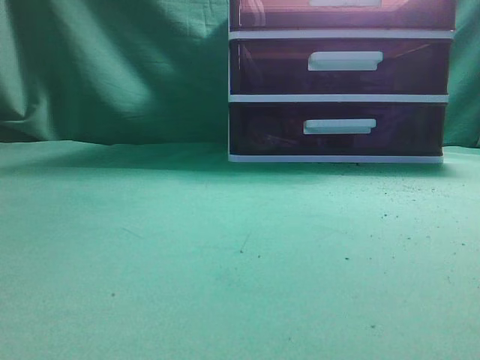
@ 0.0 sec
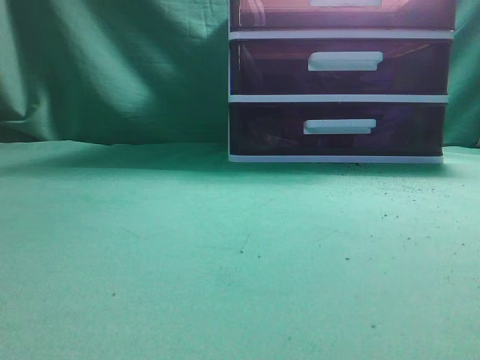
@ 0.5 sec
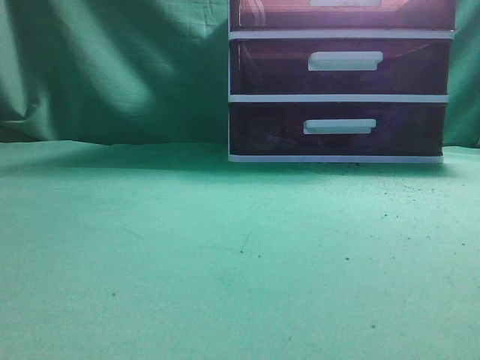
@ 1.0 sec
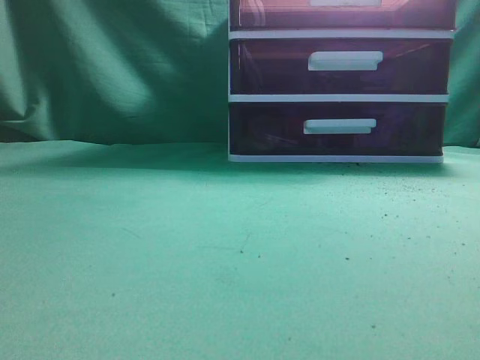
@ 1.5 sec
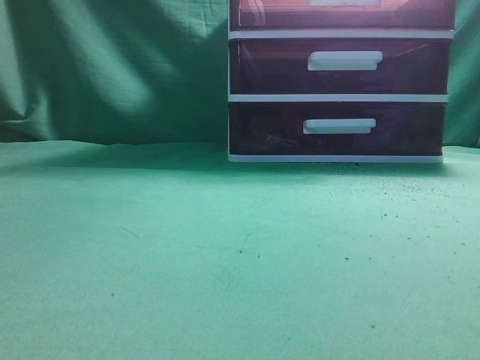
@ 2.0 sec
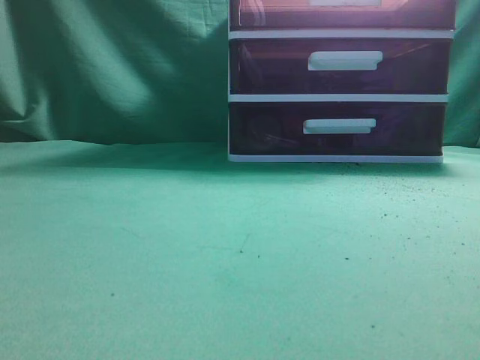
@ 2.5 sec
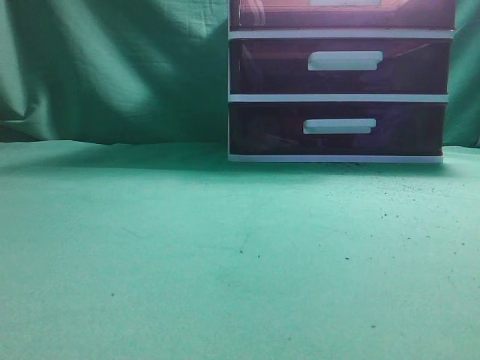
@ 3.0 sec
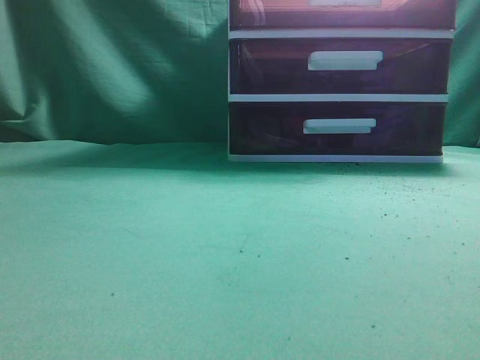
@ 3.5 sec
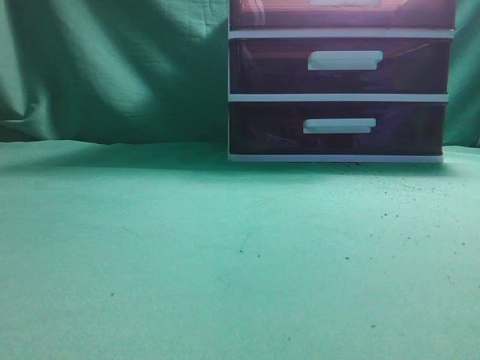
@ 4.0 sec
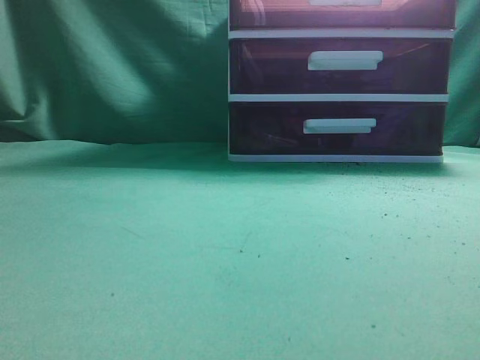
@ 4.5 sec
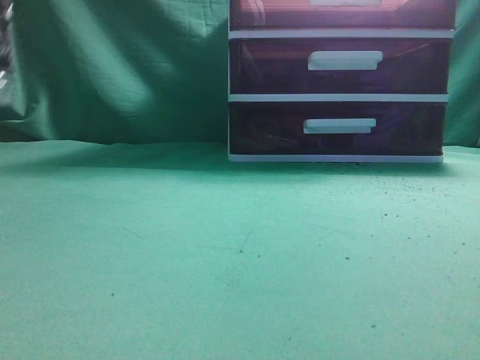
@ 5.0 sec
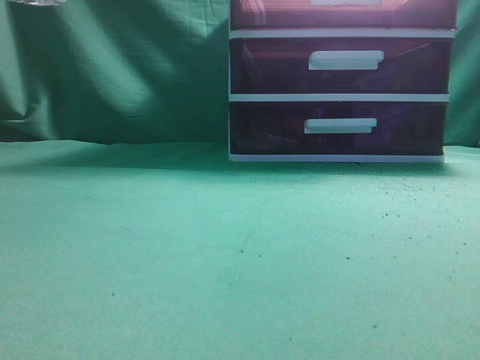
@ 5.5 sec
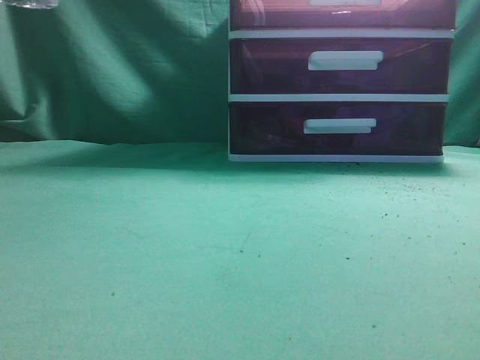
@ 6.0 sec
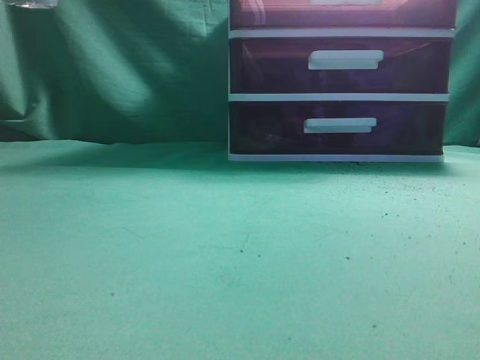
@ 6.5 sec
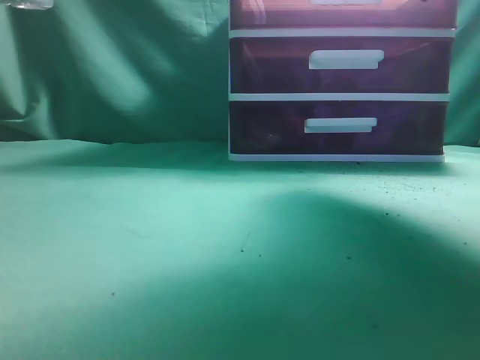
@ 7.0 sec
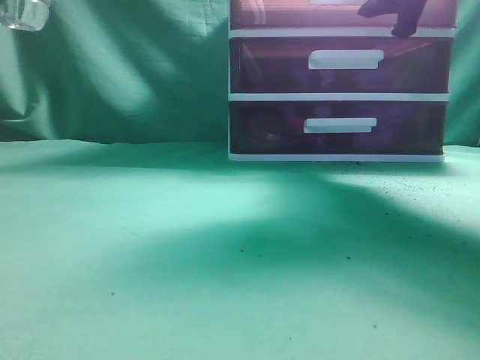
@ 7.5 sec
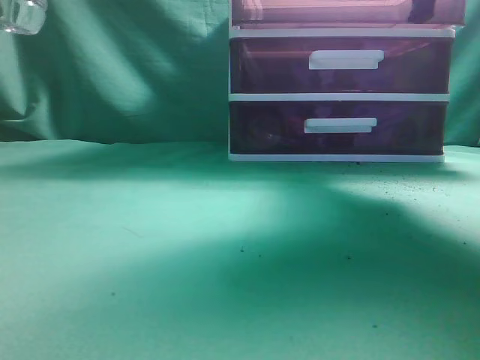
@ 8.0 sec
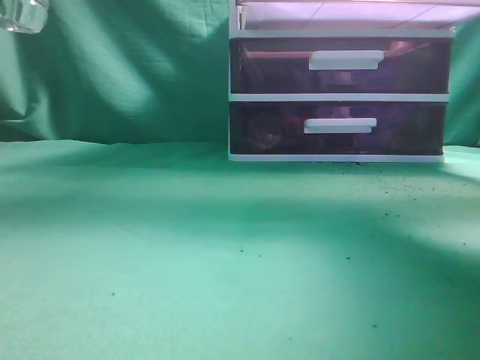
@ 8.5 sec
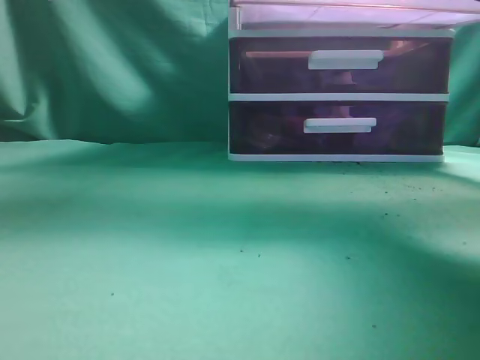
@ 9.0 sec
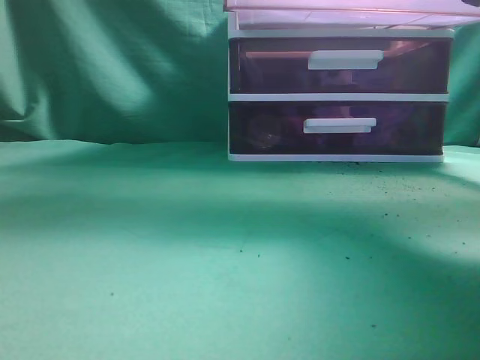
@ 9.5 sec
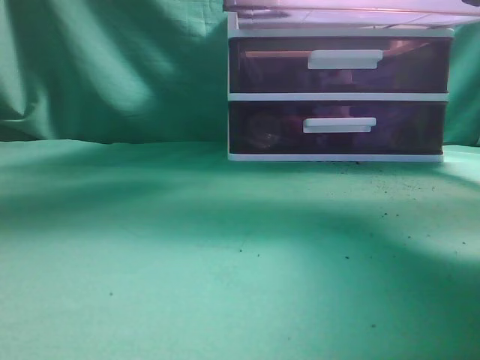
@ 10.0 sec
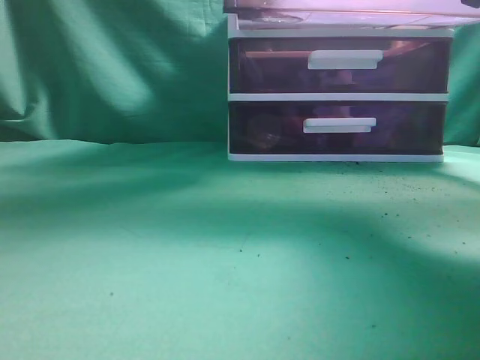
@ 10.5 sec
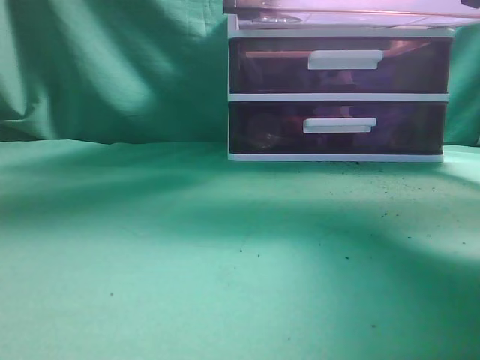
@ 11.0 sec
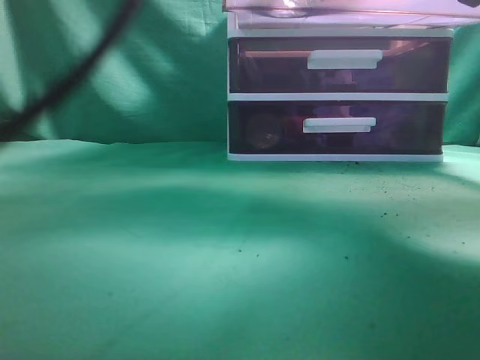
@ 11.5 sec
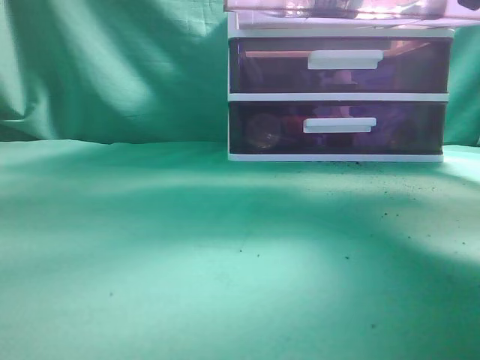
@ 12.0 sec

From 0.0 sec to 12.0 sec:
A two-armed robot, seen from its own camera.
Task of the whole recording: place the water bottle into the drawer.
Step, from 0.0 sec to 8.5 sec: Open the drawer.
Step, from 9.0 sec to 11.5 sec: Place the water bottle inside the drawer.
From 6.0 sec to 8.0 sec: The right gripper goes approximately 30 cm forward, and opens, then closes once more.
From 8.0 sec to 10.0 sec: The left gripper moves to the right and forward, some 20 cm; the right gripper travels backward by approximately 10 cm.
From 10.0 sec to 12.0 sec: The left gripper heads to the right, covering roughly 10 cm.

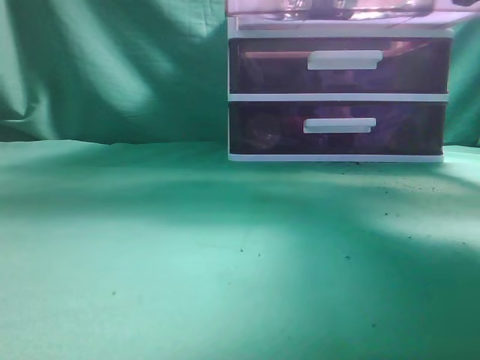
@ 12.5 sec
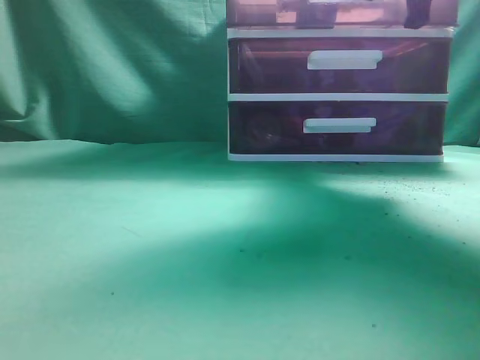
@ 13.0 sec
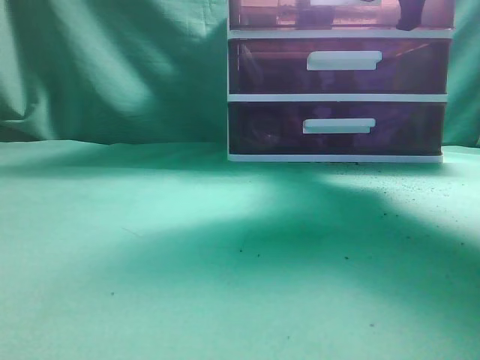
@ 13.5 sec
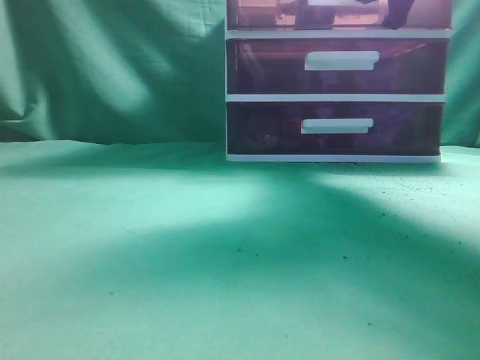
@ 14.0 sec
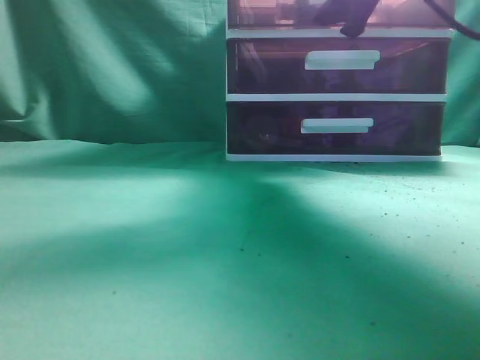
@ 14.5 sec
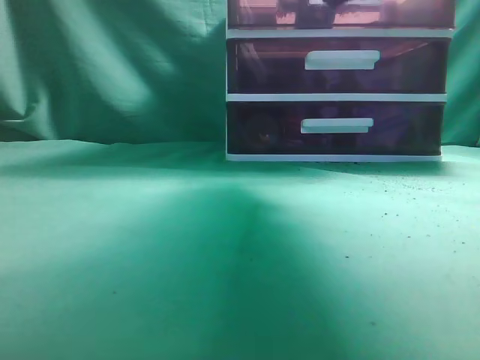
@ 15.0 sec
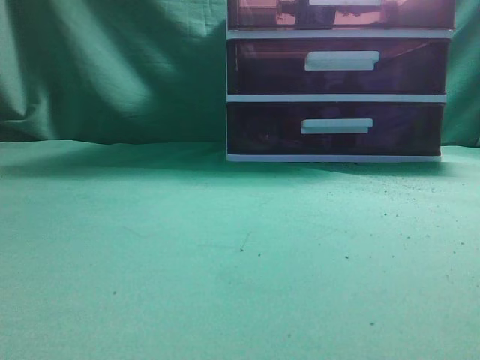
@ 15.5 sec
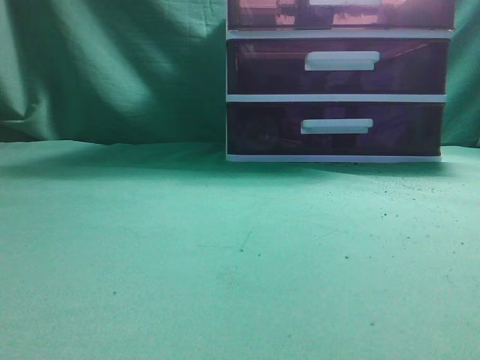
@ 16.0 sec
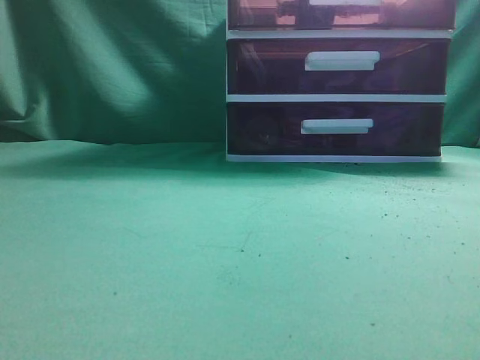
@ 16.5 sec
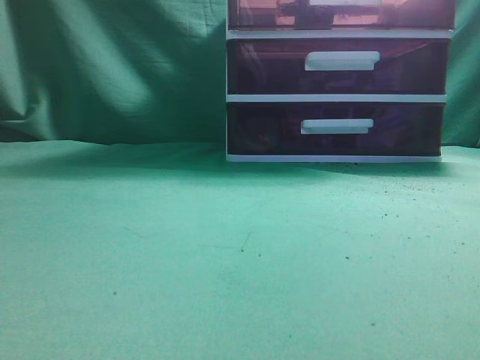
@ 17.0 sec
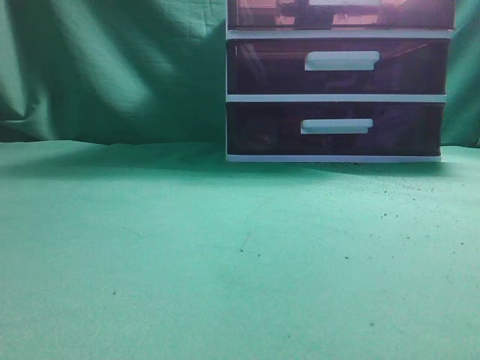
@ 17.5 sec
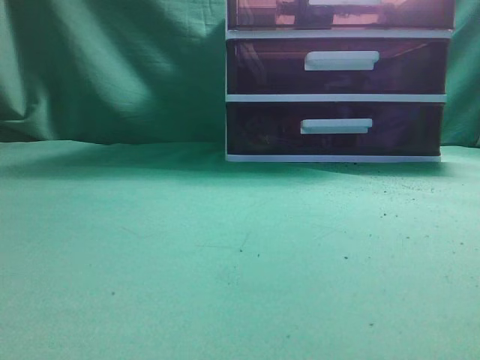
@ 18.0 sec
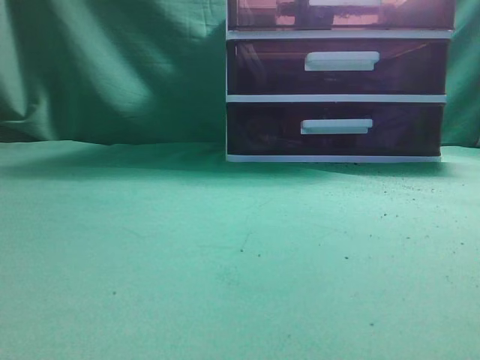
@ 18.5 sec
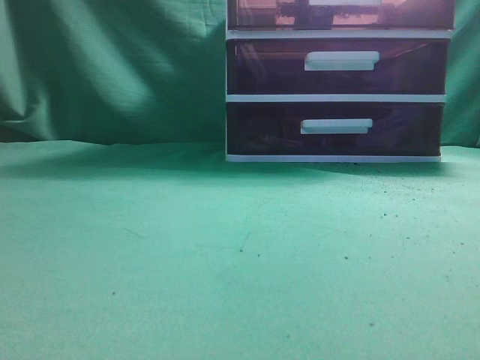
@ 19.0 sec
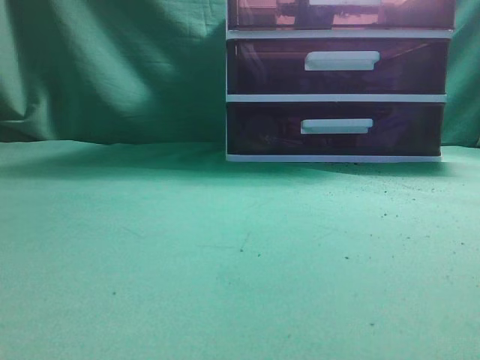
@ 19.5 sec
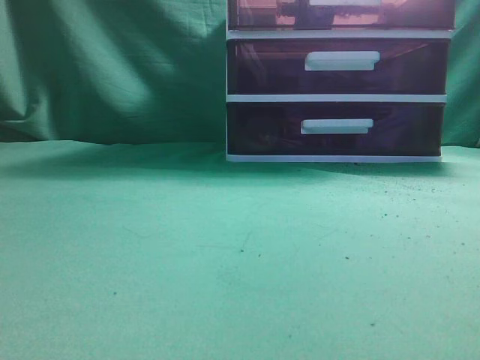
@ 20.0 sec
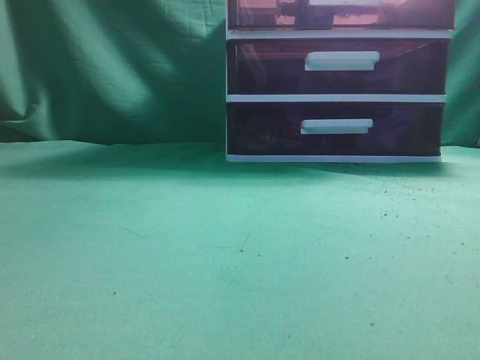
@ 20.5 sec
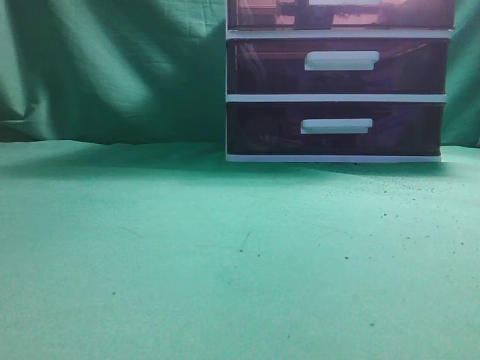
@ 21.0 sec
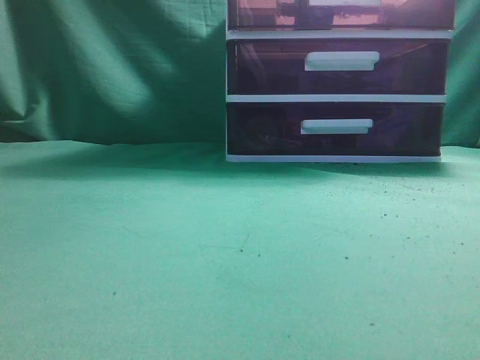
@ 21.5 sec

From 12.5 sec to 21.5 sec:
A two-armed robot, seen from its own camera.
Task of the whole recording: place the water bottle into the drawer.
Step, from 12.5 sec to 15.0 sec: Close the drawer.
From 12.5 sec to 14.5 sec: The right gripper goes some 10 cm forward and to the left, and opens its fingers. Meanwhile the left gripper shifts approximately 15 cm backward and to the left.
From 14.5 sec to 17.0 sec: The left gripper goes some 25 cm downward, backward and to the left; the right gripper heads backward, covering roughly 35 cm, and closes.
